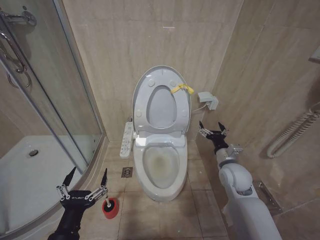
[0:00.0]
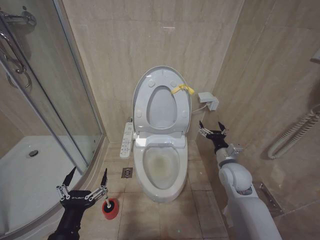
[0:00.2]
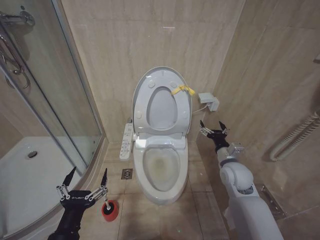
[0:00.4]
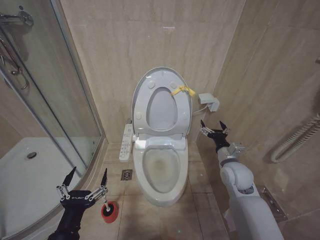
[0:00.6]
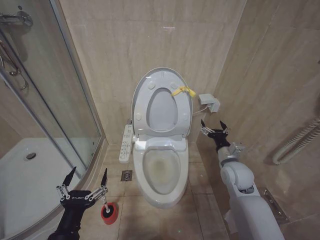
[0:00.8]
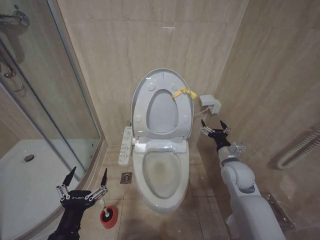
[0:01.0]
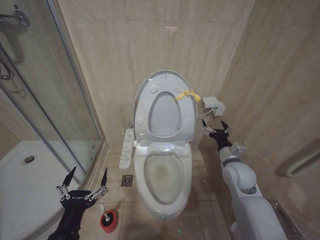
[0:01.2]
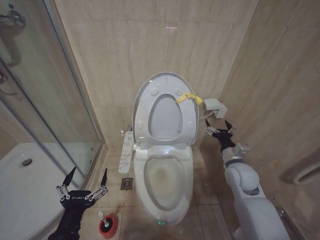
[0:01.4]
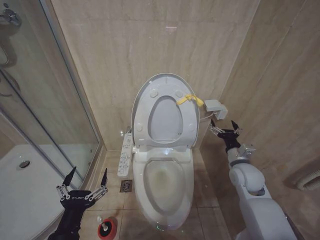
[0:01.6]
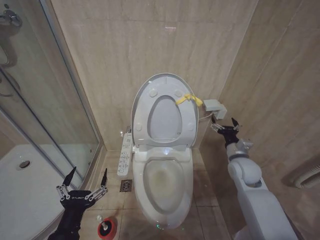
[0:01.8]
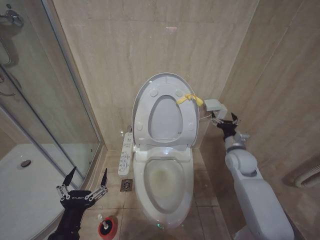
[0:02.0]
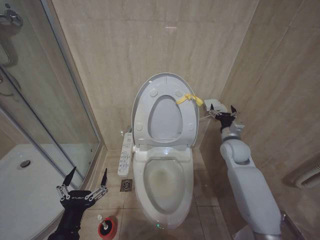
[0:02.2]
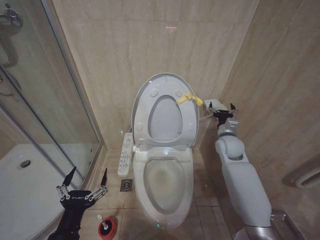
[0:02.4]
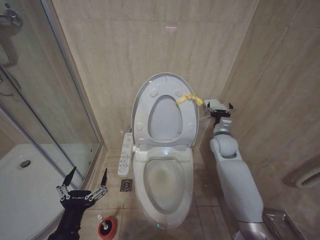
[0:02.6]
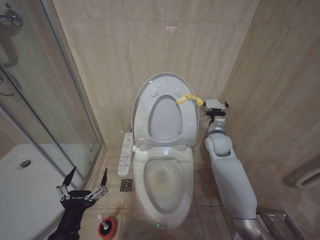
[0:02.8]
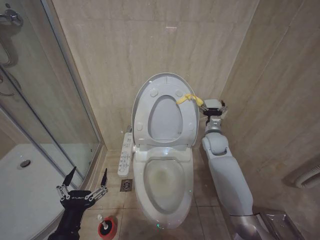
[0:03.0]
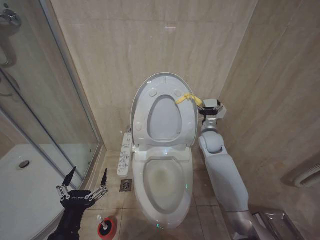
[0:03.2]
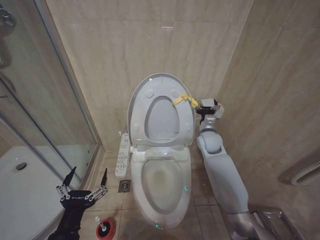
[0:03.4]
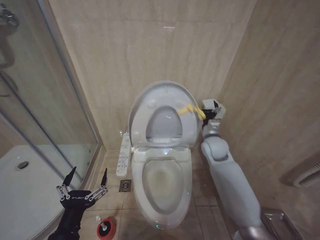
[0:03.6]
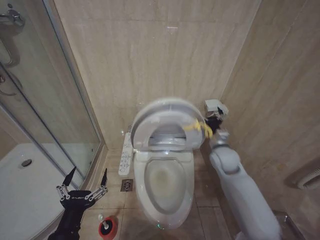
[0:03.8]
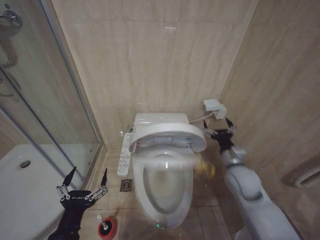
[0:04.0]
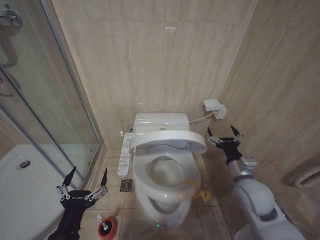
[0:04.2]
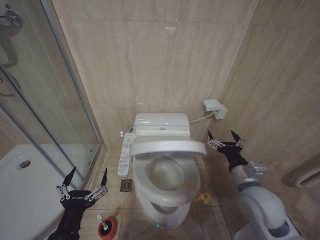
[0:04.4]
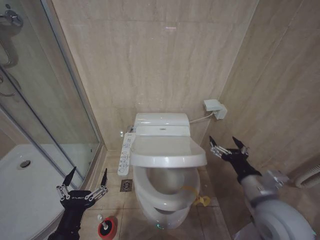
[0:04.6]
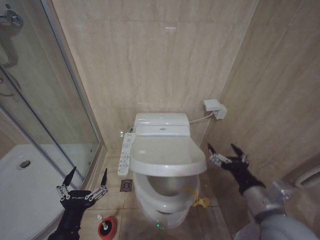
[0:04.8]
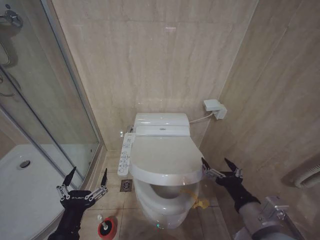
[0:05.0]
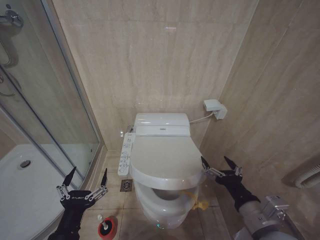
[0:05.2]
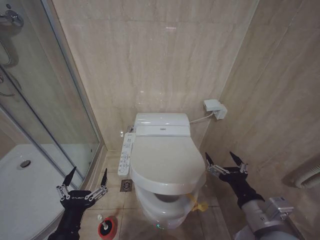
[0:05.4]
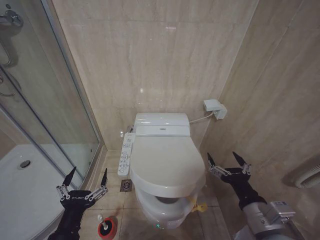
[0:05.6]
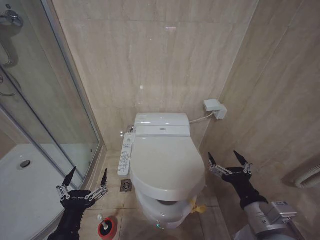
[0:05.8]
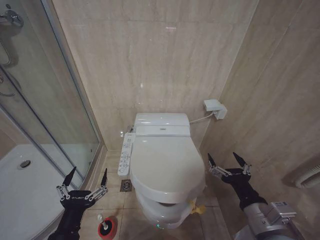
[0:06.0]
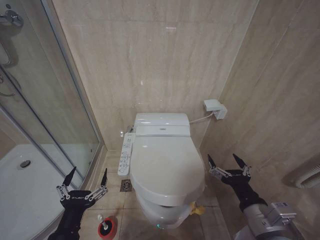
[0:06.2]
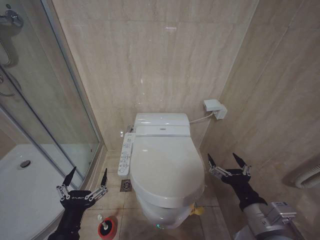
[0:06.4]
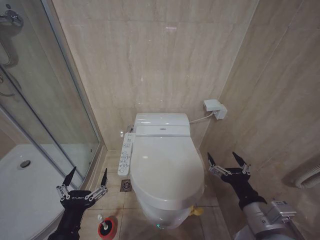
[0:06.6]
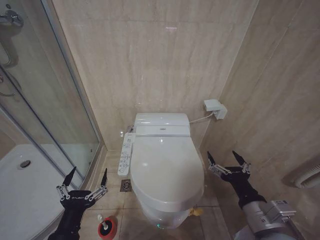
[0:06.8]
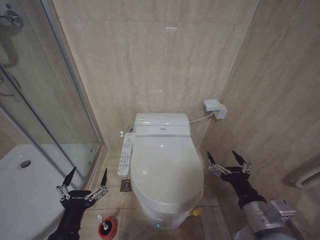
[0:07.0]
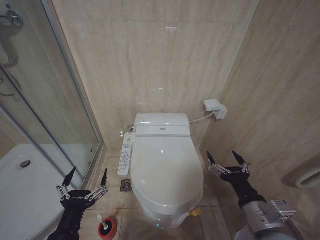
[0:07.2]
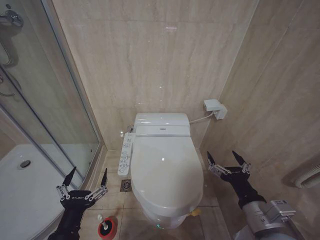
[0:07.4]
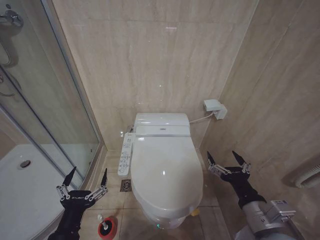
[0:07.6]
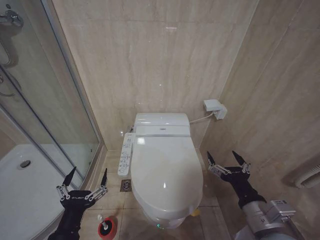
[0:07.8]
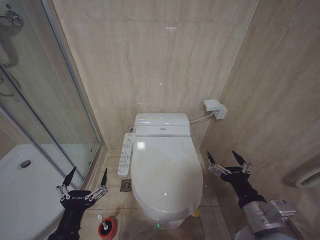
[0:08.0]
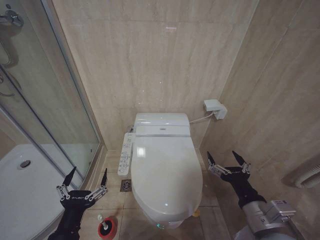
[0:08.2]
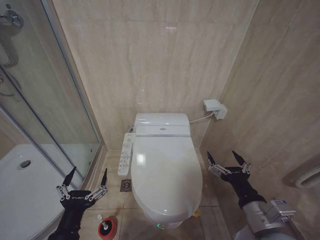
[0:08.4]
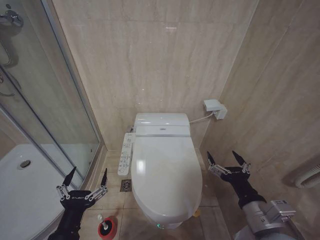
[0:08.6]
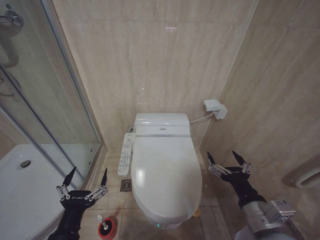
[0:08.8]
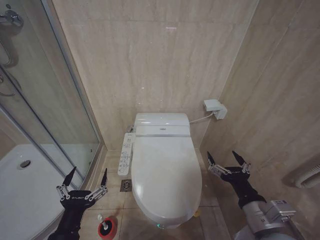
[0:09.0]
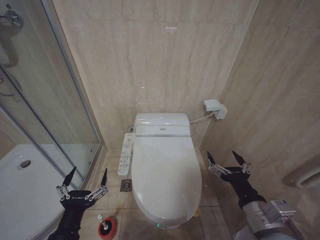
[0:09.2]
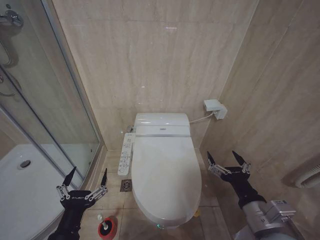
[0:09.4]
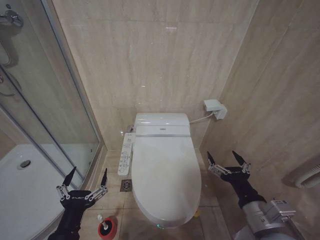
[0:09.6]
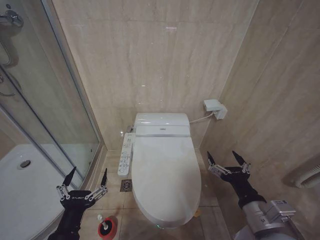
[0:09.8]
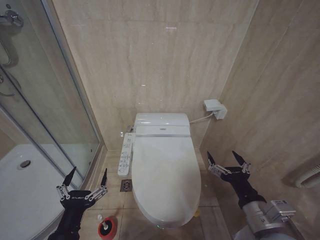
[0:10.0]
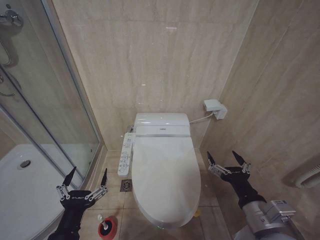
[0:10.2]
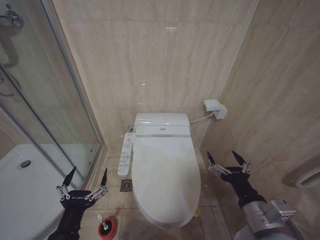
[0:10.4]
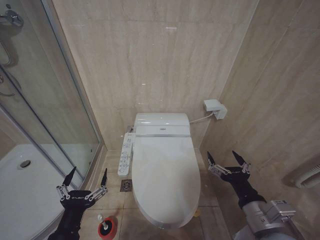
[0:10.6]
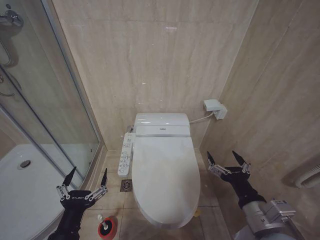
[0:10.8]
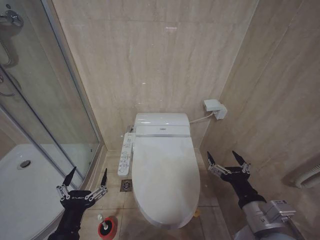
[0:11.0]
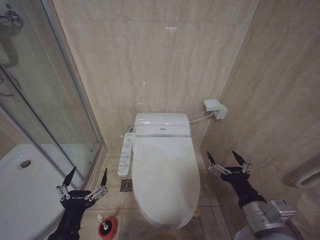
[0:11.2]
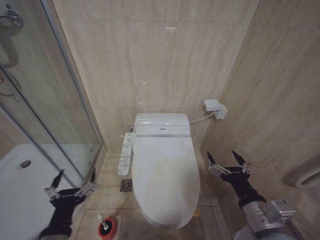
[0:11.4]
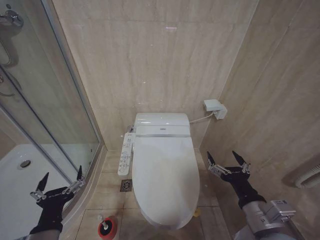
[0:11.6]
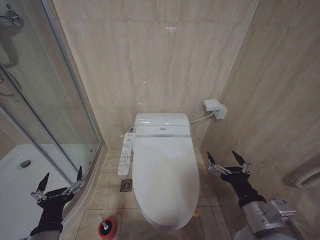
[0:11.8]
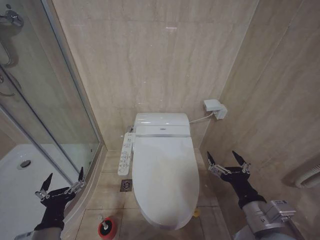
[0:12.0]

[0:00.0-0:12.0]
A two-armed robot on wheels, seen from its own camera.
Task of the whole recording: Open the toilet lid, clean the toilet bowl with a toilet brush, close the toilet lid, and flush.
0:00.0 to 0:01.6: The grippers make only small movements.
0:01.6 to 0:03.0: The right gripper moves forward and to the left, some 15 cm.
0:03.0 to 0:04.4: The right gripper moves backward, about 25 cm.
0:04.4 to 0:06.0: The right gripper is displaced backward by some 10 cm.
0:06.0 to 0:10.4: The two grippers keep their place.
0:10.4 to 0:12.0: The grippers stay close to where they were, moving slightly.

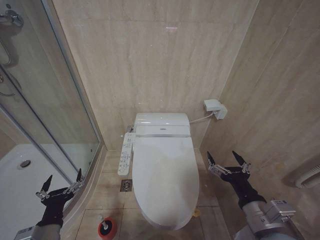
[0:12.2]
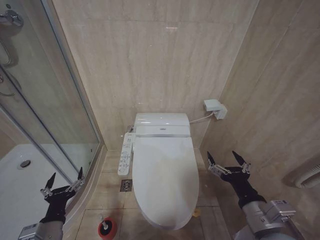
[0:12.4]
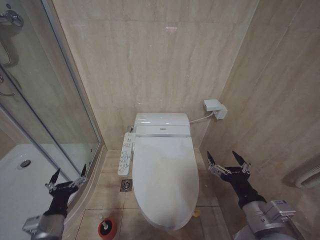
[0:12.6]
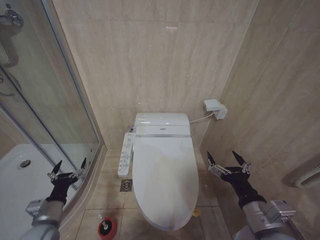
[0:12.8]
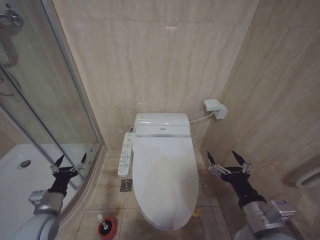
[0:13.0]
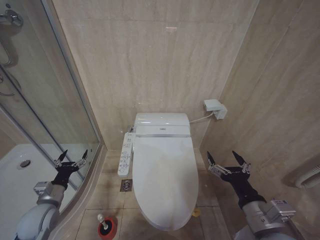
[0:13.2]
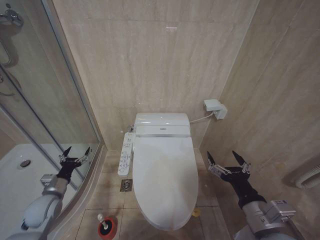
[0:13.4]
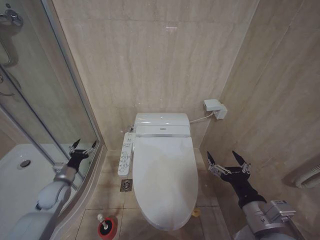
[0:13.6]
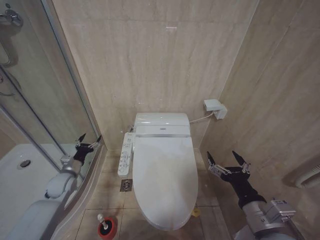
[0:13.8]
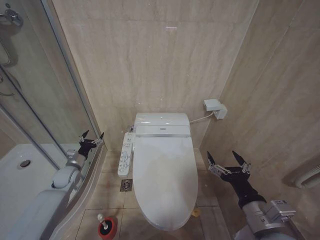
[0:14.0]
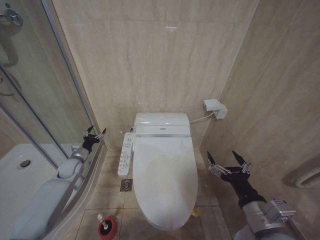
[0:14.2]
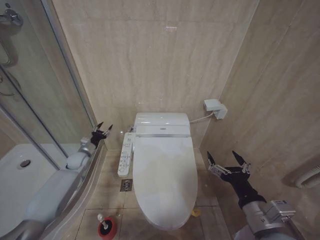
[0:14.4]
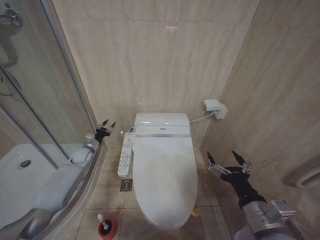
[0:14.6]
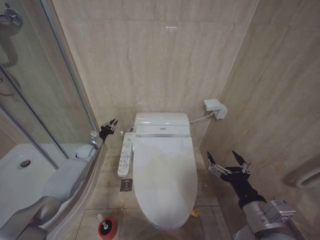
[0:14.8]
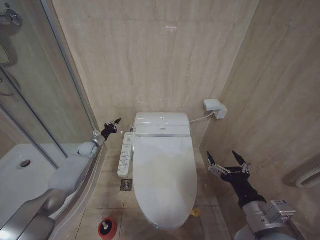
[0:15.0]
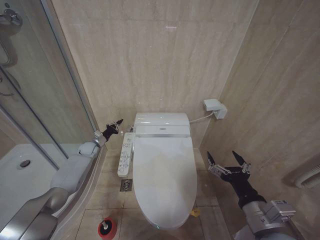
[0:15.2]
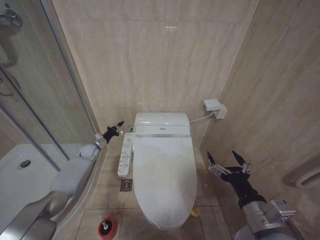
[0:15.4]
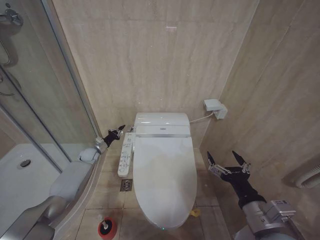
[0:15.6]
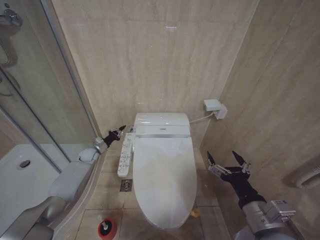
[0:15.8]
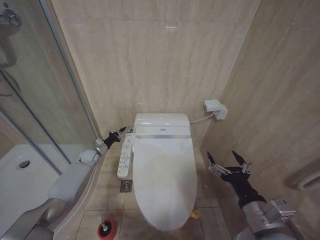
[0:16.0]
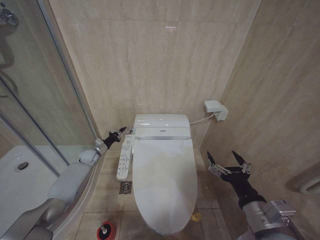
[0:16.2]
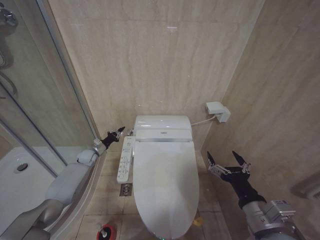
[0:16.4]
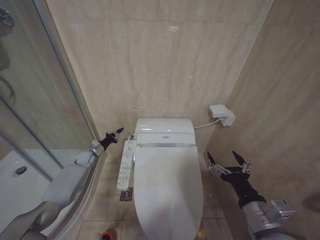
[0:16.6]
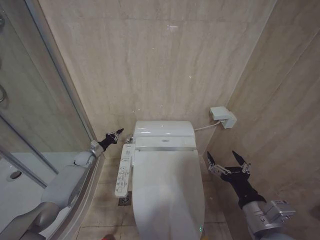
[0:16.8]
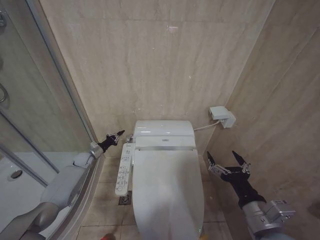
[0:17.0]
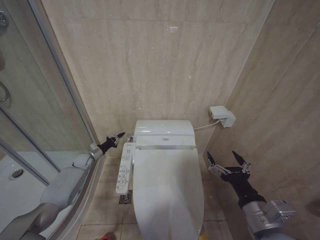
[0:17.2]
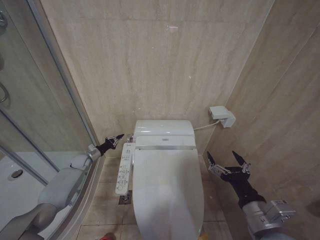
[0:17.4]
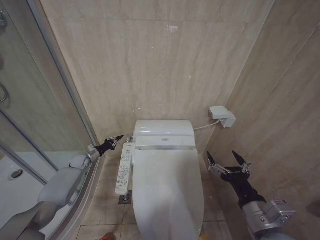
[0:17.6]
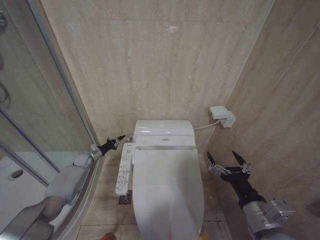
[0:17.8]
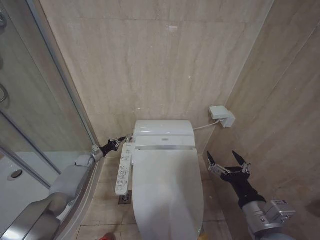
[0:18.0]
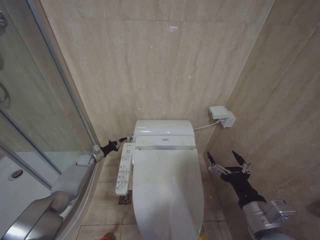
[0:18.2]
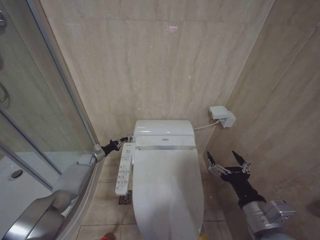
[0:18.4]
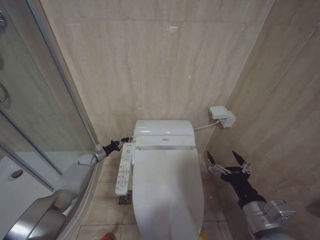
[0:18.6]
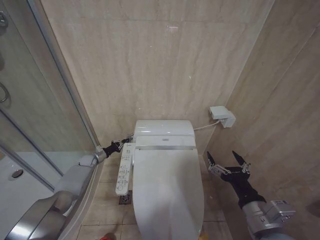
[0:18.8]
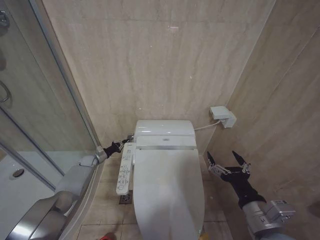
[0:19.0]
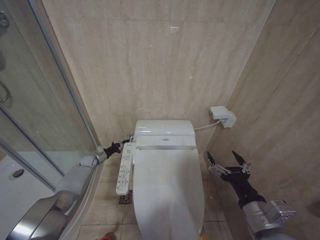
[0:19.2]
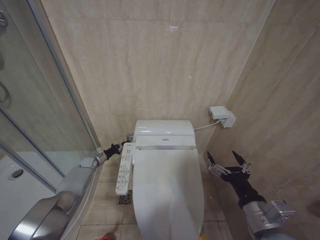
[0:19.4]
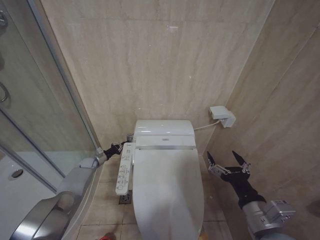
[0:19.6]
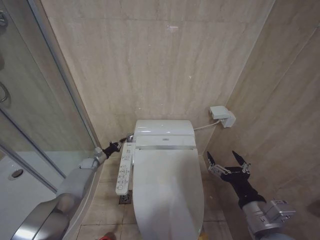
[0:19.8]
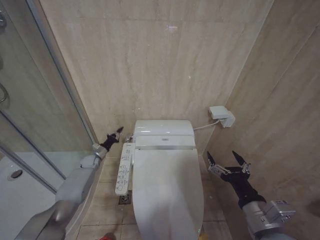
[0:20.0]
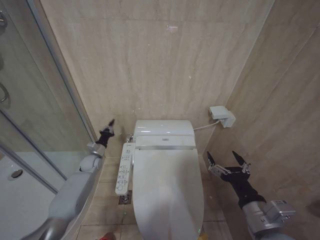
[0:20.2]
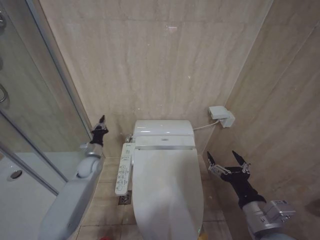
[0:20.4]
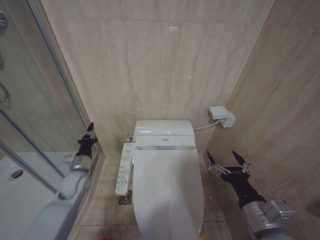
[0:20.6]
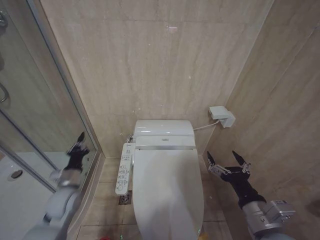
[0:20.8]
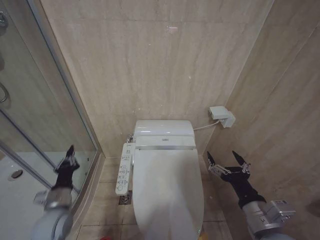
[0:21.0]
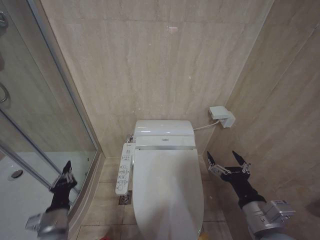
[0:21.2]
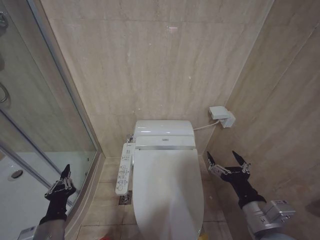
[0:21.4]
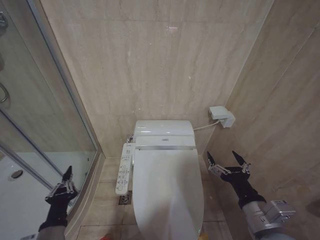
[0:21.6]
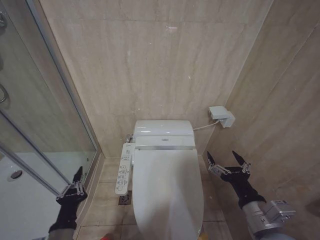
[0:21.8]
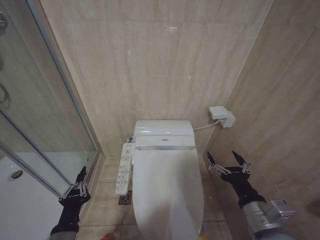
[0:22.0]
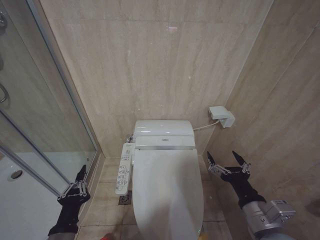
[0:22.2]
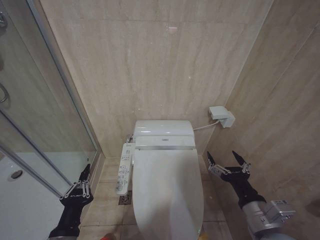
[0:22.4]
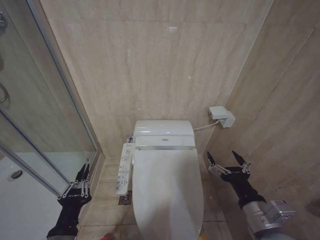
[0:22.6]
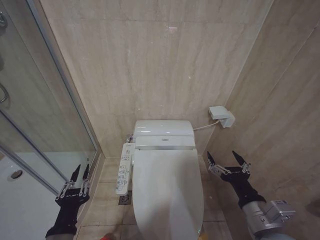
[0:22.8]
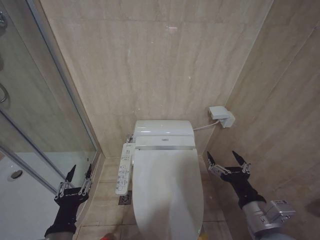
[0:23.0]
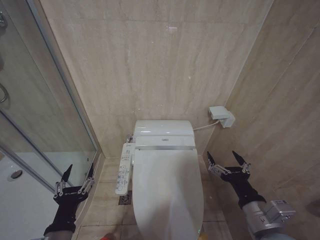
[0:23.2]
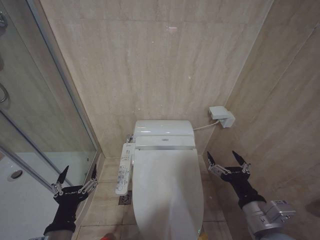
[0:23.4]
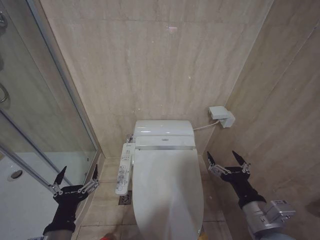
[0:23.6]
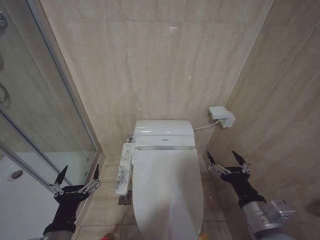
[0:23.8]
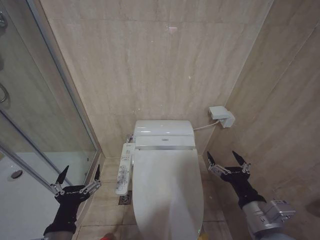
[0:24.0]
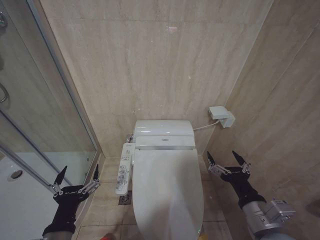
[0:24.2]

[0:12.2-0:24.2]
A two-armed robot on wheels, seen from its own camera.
Task of the whole recording: Open the toilet lid, clean the toilet bowl with a toilet brush, close the toilet lid, and flush.
0:12.2 to 0:13.8: The left gripper travels forward by some 25 cm.
0:13.8 to 0:15.2: The left gripper heads forward, covering roughly 20 cm, and closes up.
0:15.2 to 0:16.6: The grippers stay close to where they were, moving slightly.
0:16.6 to 0:18.2: The left gripper moves about 5 cm.
0:18.2 to 0:19.8: There are only small adjustments of the grippers.
0:19.8 to 0:21.2: The left gripper travels backward by roughly 35 cm.
0:21.2 to 0:22.6: The left gripper heads backward, to the right and upward, covering approximately 15 cm.
0:22.6 to 0:24.2: The left gripper opens up.
